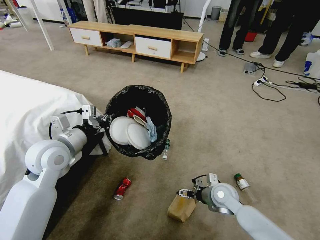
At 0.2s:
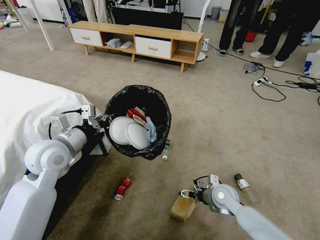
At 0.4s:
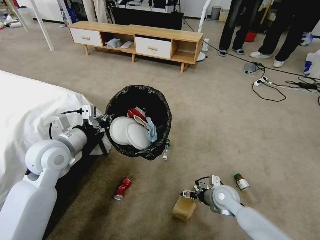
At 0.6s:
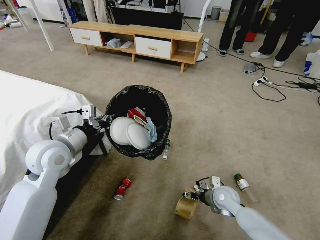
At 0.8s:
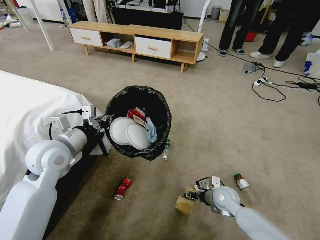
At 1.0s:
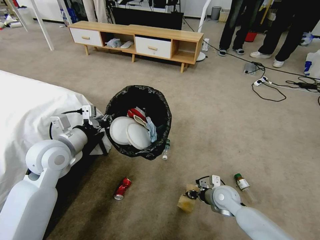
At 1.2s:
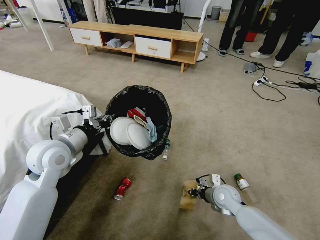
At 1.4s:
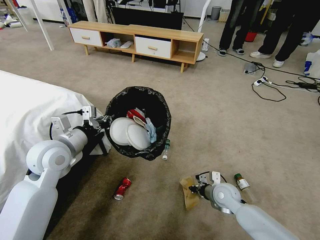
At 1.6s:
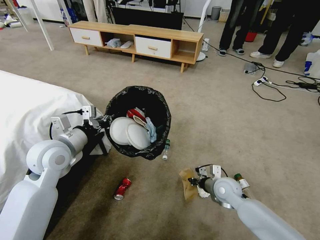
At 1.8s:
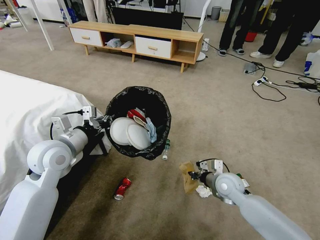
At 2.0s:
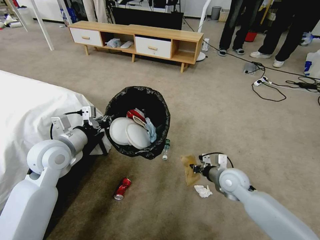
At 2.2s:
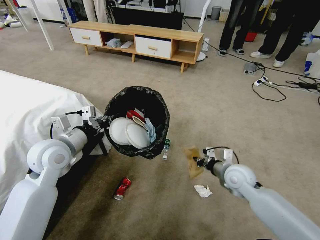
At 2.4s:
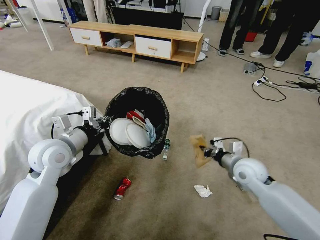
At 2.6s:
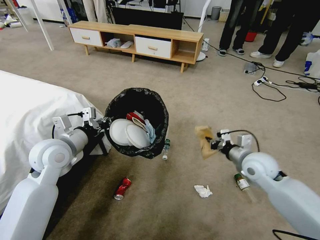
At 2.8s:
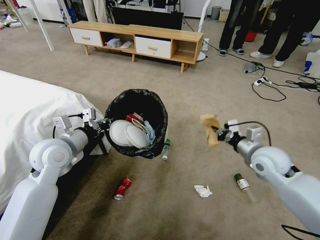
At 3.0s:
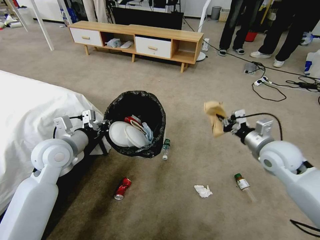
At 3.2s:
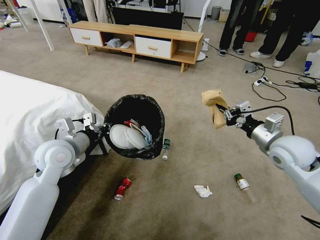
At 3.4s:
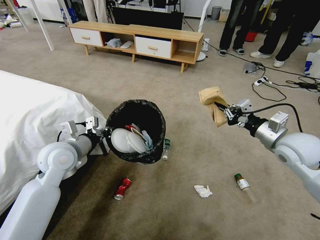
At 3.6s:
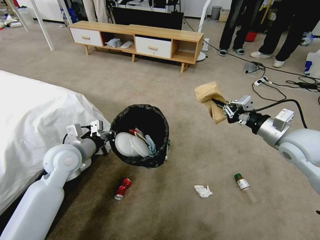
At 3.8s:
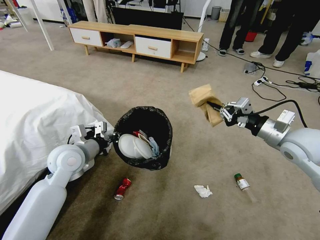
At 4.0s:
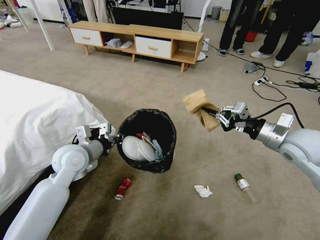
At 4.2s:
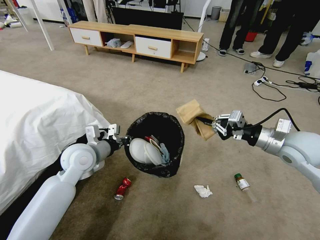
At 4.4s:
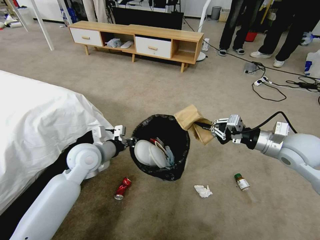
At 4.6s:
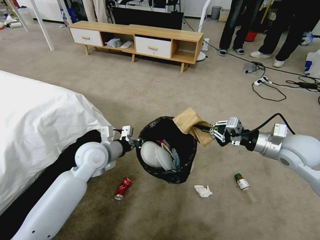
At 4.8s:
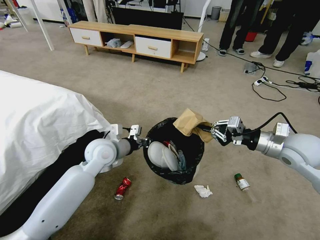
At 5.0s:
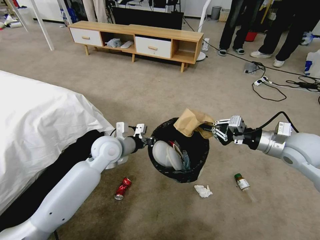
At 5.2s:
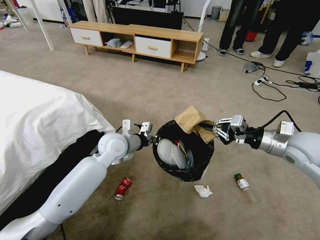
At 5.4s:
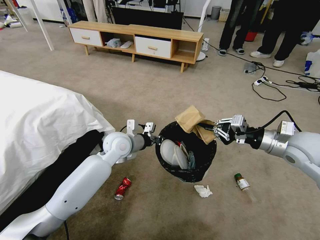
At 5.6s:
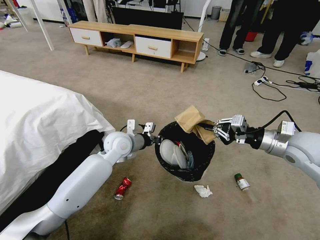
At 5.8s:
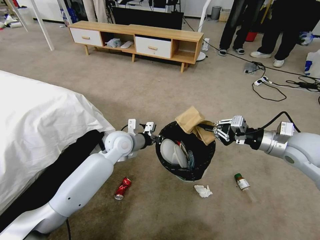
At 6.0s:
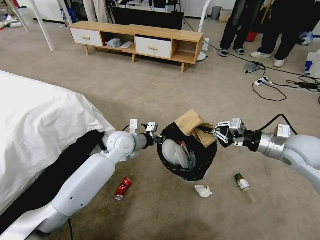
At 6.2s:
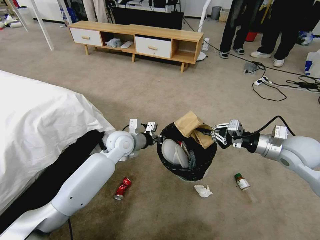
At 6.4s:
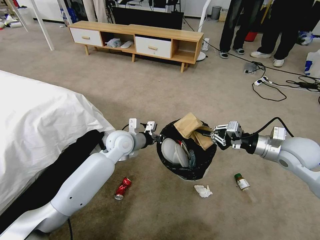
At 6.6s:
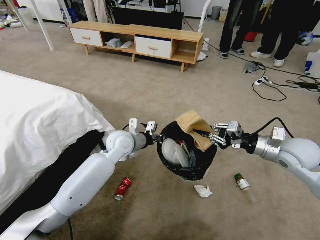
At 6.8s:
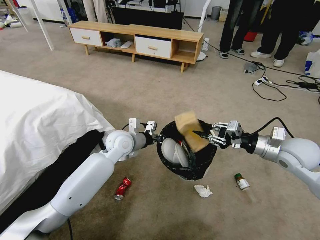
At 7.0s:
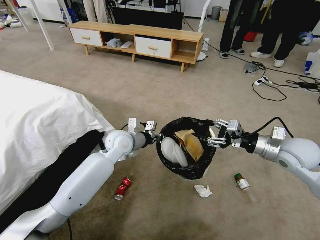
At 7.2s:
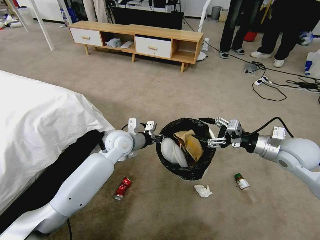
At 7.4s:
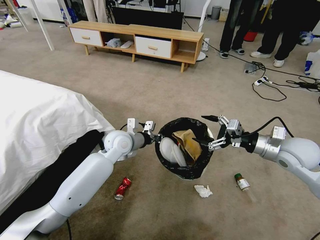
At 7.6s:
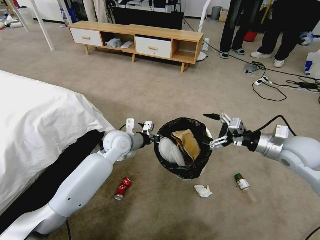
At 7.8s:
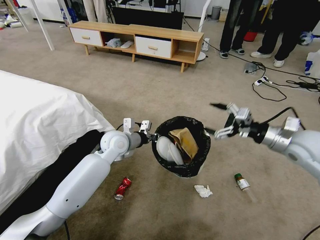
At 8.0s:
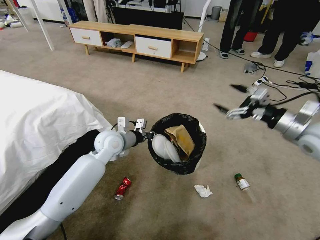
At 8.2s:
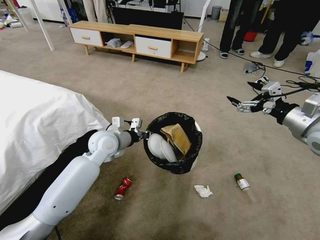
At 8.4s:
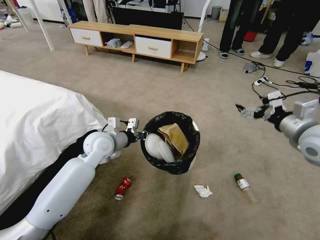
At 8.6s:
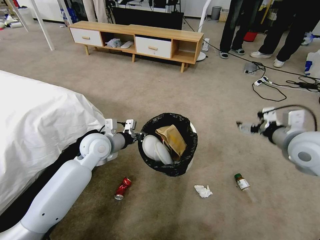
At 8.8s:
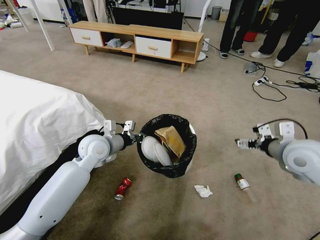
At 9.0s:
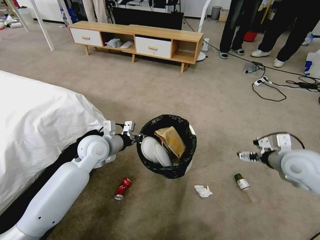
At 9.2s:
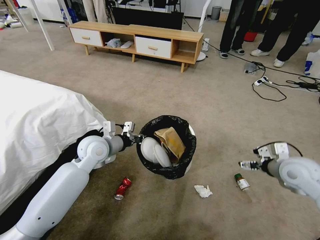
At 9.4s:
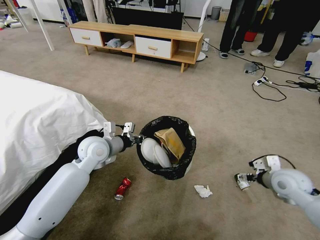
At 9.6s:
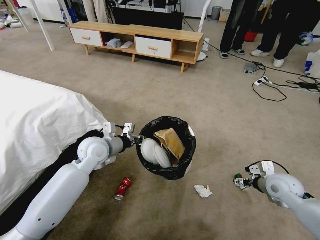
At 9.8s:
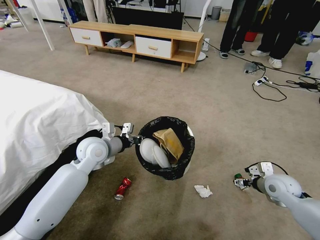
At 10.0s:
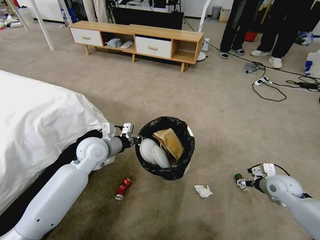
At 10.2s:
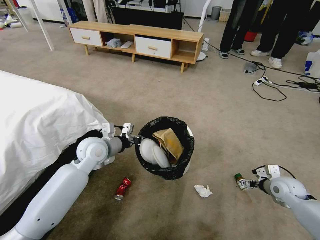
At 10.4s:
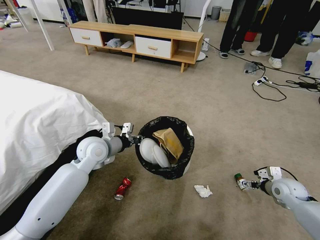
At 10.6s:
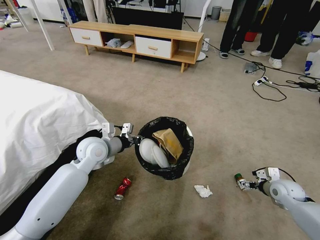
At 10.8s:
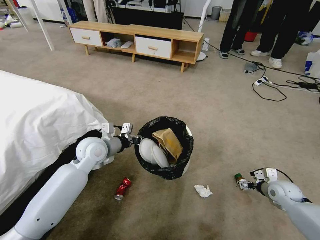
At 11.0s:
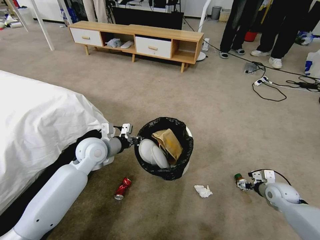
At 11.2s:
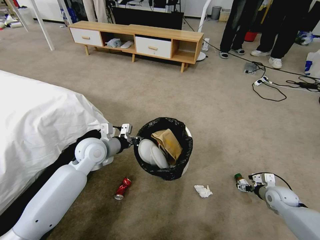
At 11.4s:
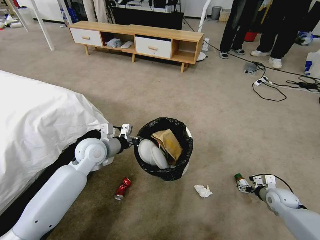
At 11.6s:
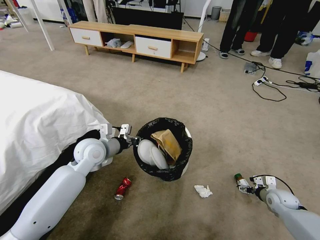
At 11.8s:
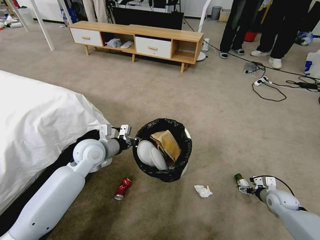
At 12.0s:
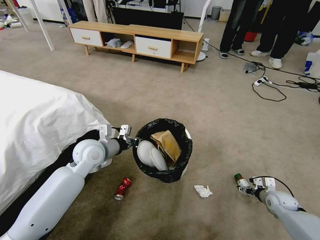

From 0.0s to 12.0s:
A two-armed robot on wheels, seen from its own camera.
Task of the whole recording: Pick up the trash bin and place the garbage on the floor into it.
From 0.0s to 1.6s: The right gripper closes its fingers.
From 1.6s to 3.0s: The right gripper travels upward and to the right by about 20 cm.
From 3.0s to 4.4s: The left gripper heads to the right, covering some 5 cm.
From 4.4s to 6.0s: The left gripper shifts roughly 10 cm to the right and forward.
From 6.0s to 7.6s: The right gripper opens up.
From 7.6s to 9.0s: The left gripper travels to the left by approximately 5 cm. The right gripper goes upward and returns, approximately 5 cm each way.
From 9.0s to 10.4s: The right gripper travels downward and to the right by approximately 20 cm.
From 10.4s to 12.0s: The right gripper travels downward by approximately 10 cm.

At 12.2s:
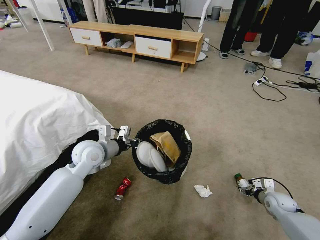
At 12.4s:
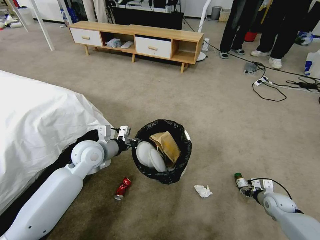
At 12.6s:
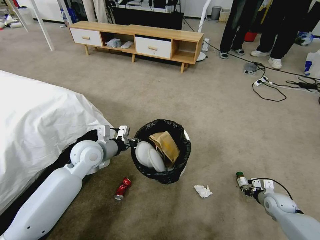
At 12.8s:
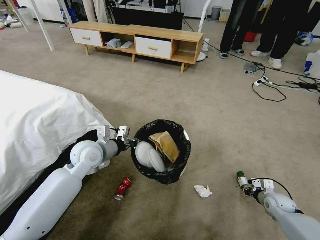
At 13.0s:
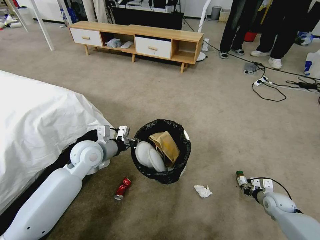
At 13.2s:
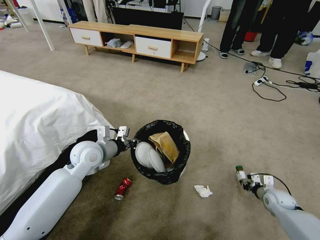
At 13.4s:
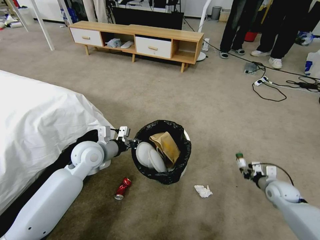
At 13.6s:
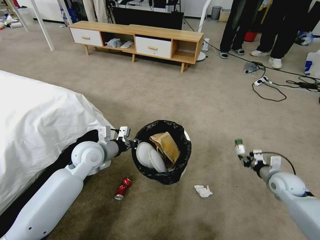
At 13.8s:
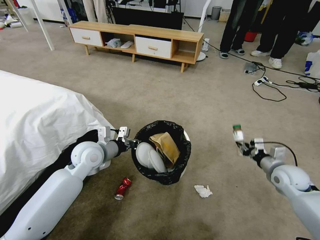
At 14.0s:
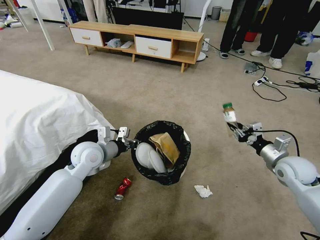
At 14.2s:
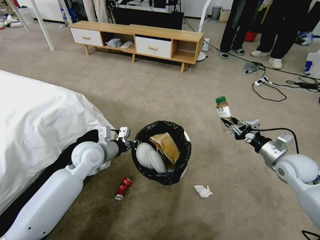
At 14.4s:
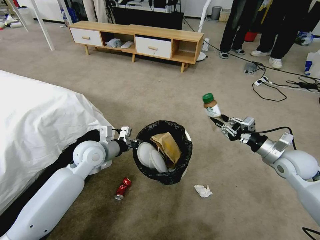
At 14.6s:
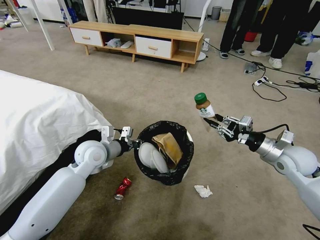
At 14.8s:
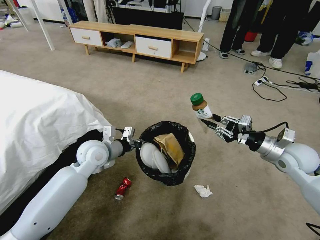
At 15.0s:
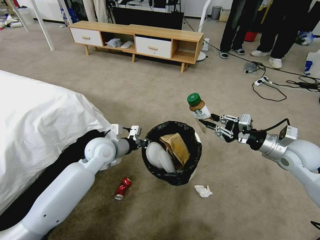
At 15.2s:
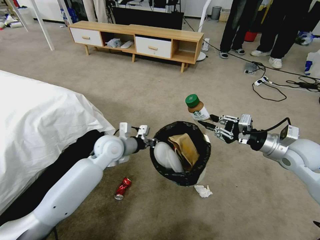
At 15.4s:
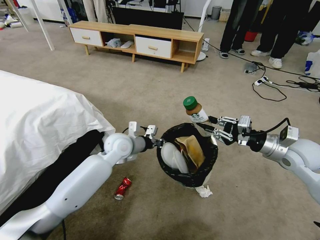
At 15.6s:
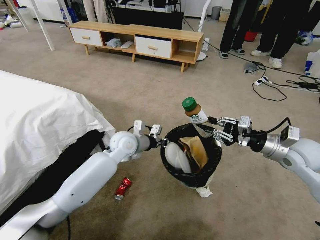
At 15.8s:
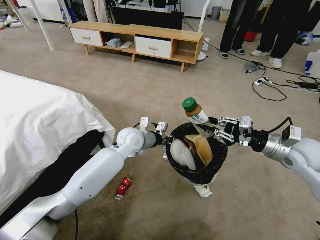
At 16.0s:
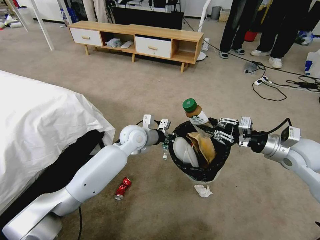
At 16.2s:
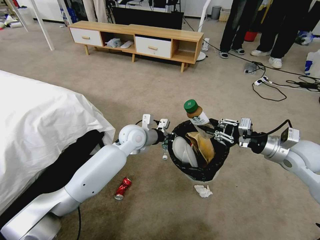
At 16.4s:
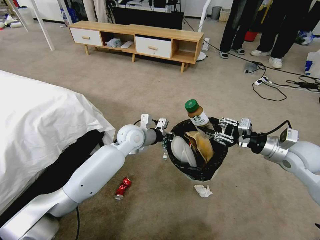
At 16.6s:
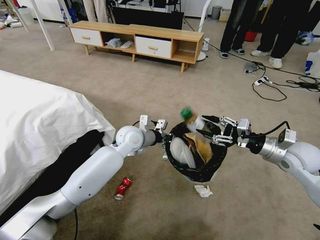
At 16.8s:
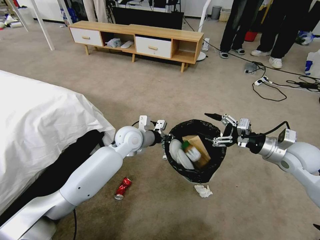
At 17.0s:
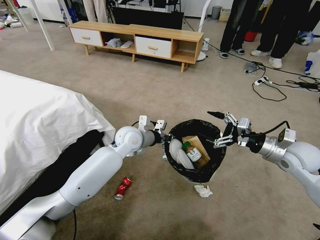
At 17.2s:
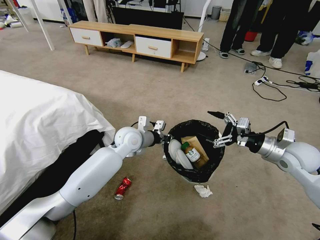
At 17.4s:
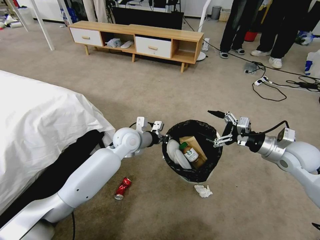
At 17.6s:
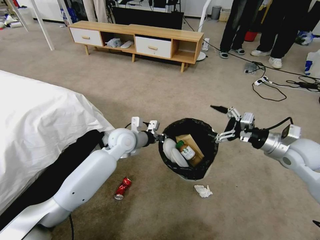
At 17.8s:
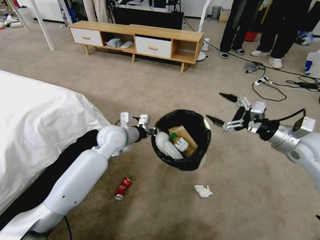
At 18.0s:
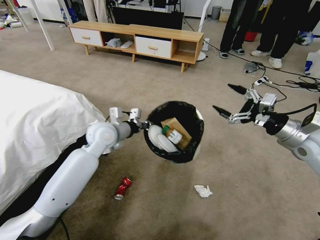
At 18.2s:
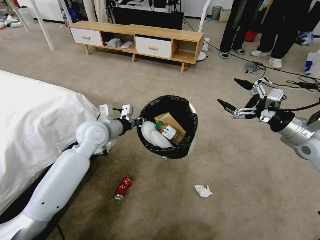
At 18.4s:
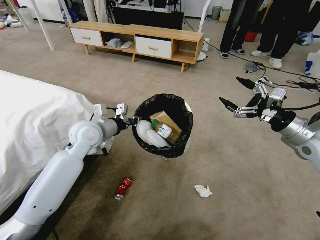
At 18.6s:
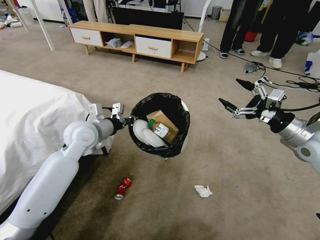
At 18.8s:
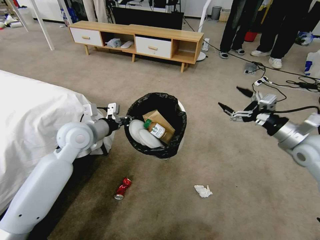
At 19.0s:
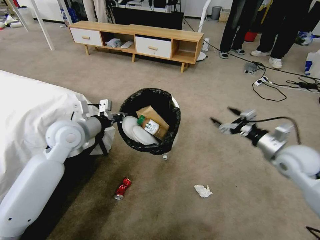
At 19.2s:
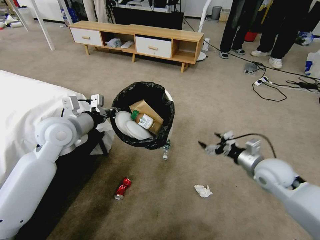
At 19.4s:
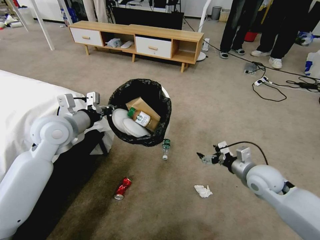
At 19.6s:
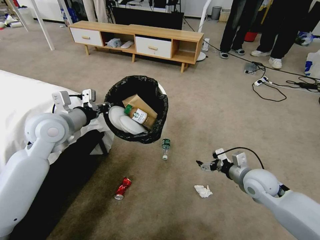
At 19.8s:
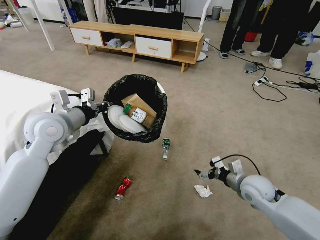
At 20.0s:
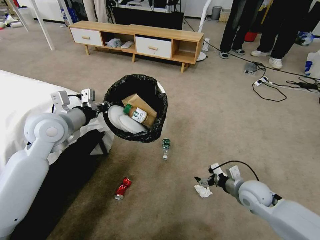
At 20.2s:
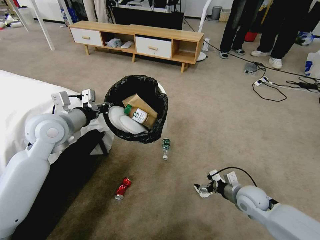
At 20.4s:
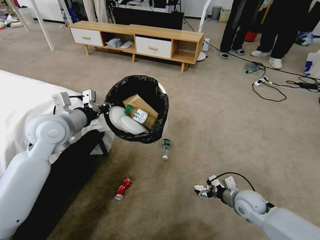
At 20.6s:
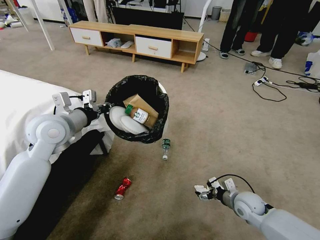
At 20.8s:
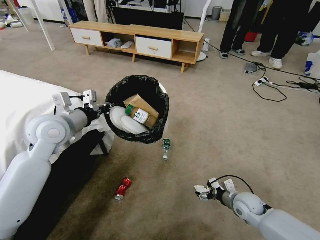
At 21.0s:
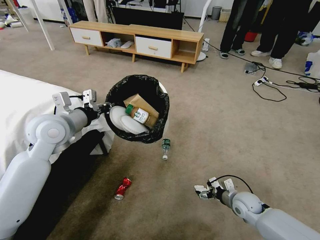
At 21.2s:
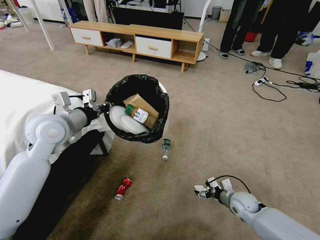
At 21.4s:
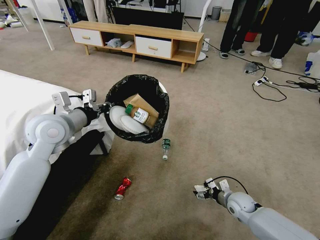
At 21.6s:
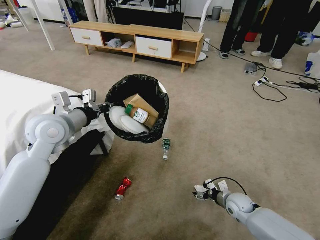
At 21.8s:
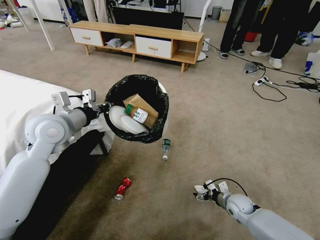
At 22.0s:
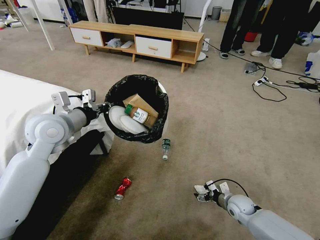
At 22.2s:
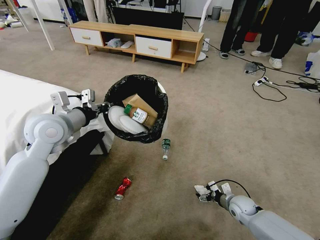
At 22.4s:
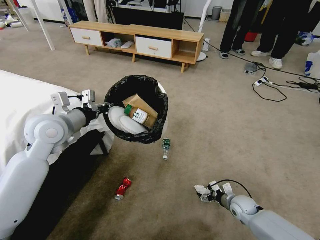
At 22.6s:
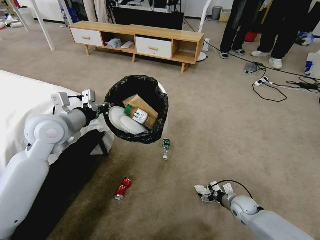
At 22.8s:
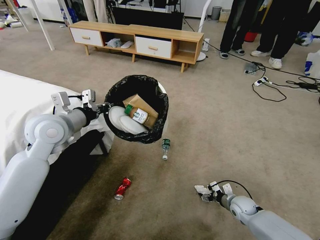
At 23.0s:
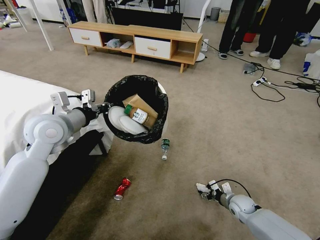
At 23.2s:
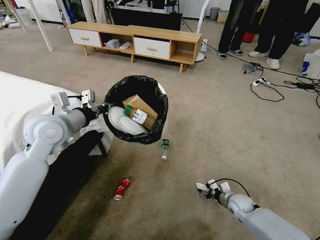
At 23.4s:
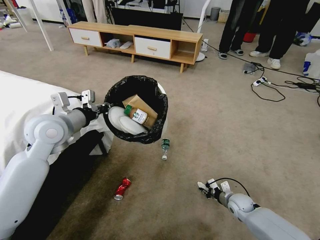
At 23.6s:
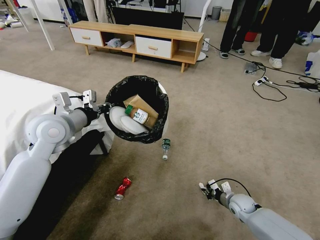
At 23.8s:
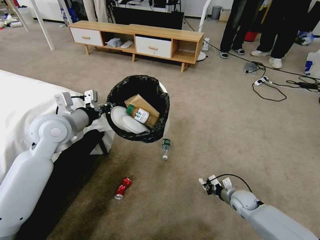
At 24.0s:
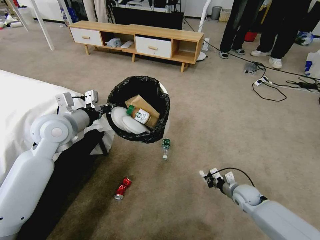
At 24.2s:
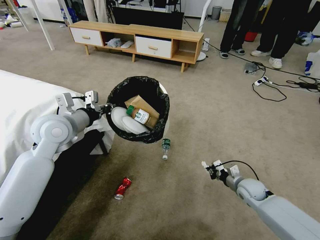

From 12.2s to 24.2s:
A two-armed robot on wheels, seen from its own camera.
Task of the whole recording: Pick up the trash bin and place the garbage on the floor into it.
From 12.2s to 13.8s: The right gripper travels upward by roughly 15 cm, and closes its fingers.
From 13.8s to 15.2s: The left gripper travels to the right by some 5 cm. Meanwhile the right gripper goes approximately 15 cm upward.
From 15.2s to 16.6s: The left gripper travels to the right by about 10 cm.
From 16.6s to 18.2s: The right gripper heads upward, covering about 5 cm, and opens up. The left gripper is displaced to the left and upward by about 10 cm.
From 18.2s to 19.8s: The left gripper goes roughly 10 cm to the left and upward. The right gripper moves downward and to the left, some 20 cm.
From 19.8s to 21.2s: The right gripper heads downward, covering about 15 cm.
From 21.2s to 22.6s: The right gripper is displaced downward by approximately 5 cm.
From 22.6s to 24.2s: The right gripper goes some 5 cm upward, and closes.
